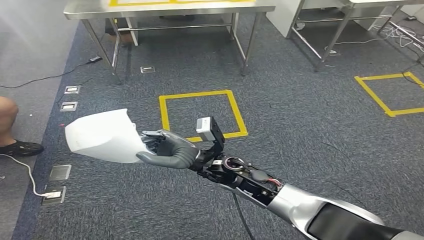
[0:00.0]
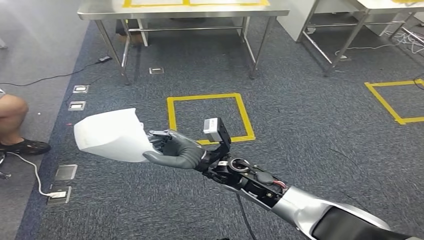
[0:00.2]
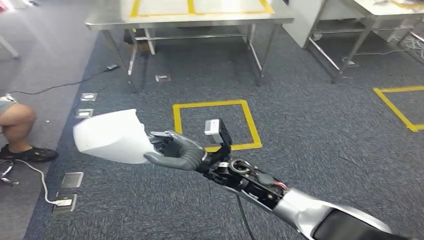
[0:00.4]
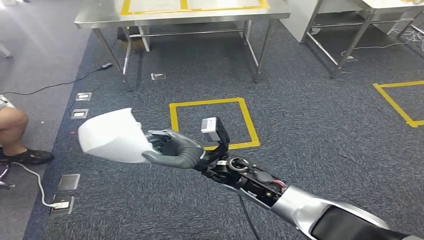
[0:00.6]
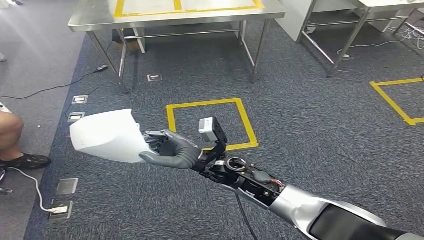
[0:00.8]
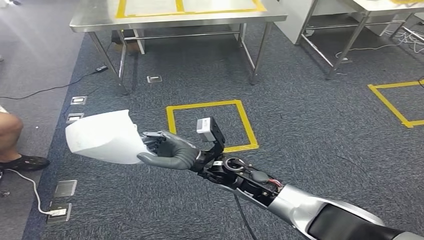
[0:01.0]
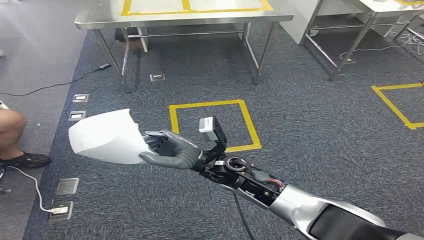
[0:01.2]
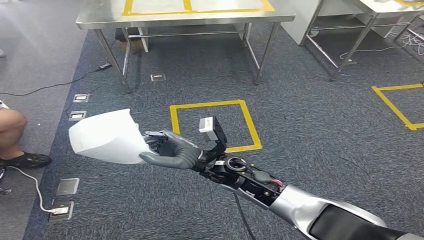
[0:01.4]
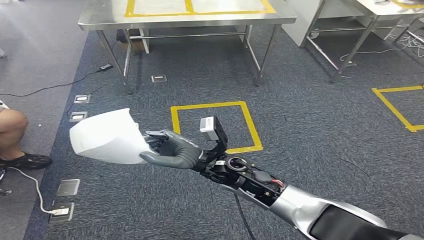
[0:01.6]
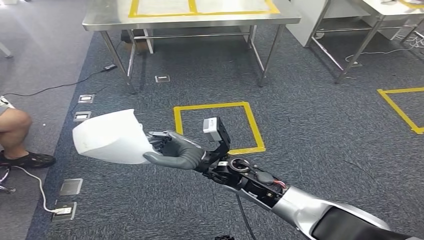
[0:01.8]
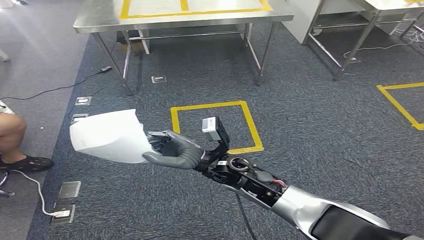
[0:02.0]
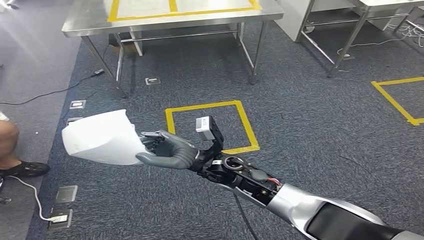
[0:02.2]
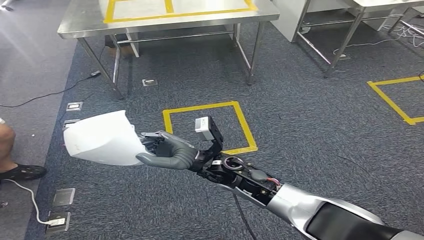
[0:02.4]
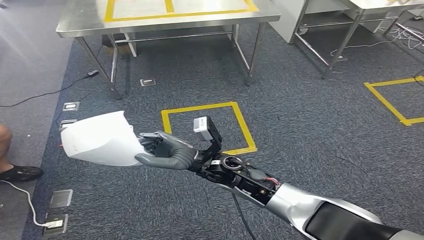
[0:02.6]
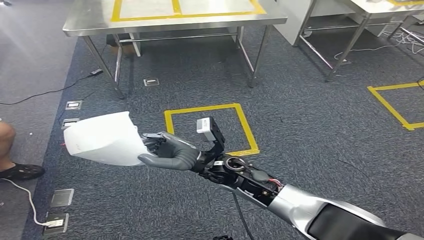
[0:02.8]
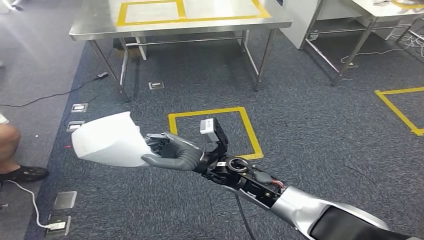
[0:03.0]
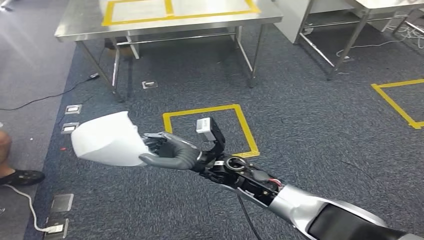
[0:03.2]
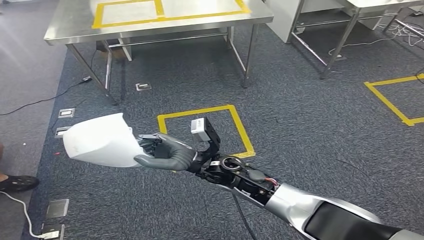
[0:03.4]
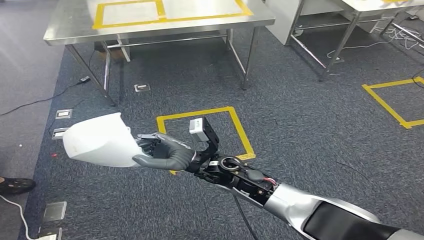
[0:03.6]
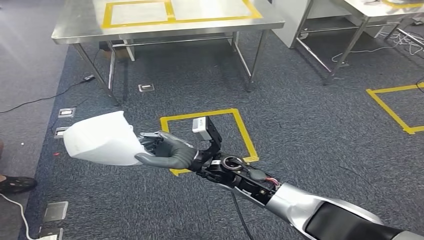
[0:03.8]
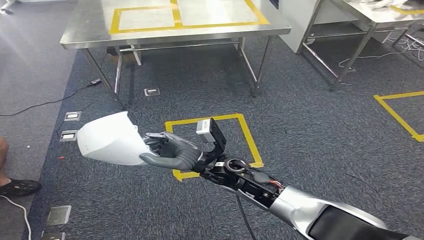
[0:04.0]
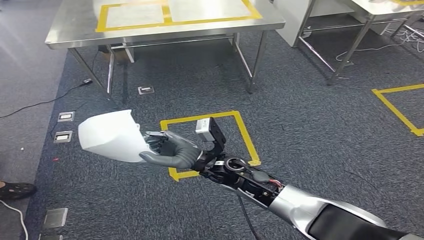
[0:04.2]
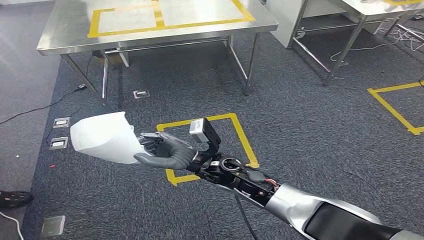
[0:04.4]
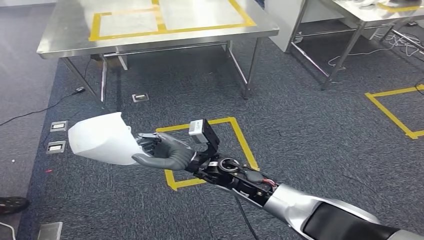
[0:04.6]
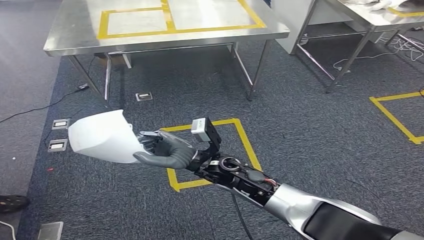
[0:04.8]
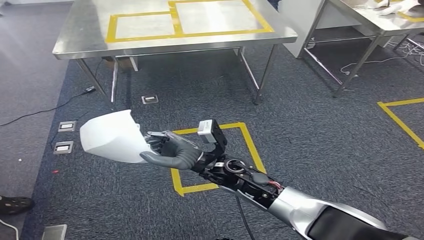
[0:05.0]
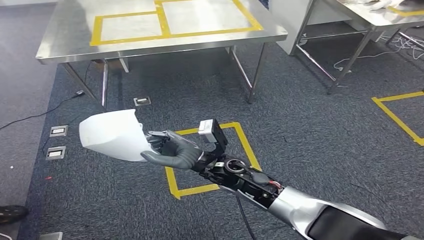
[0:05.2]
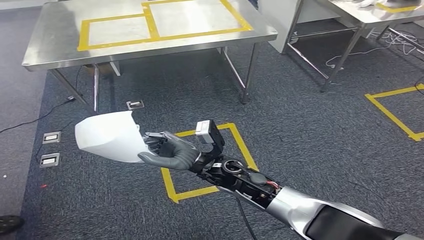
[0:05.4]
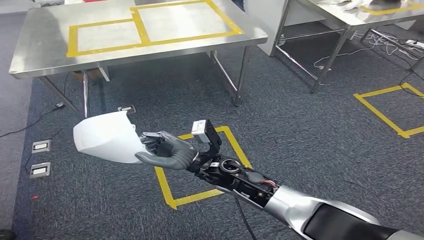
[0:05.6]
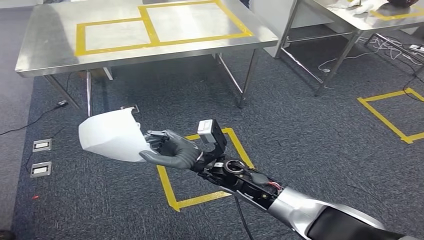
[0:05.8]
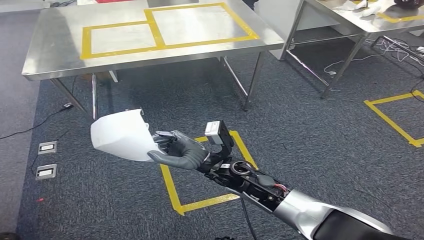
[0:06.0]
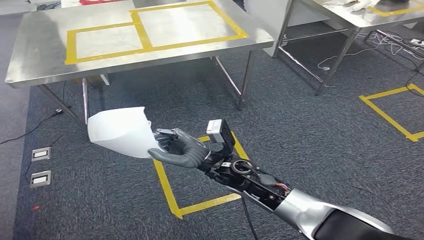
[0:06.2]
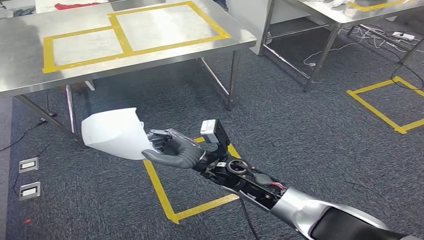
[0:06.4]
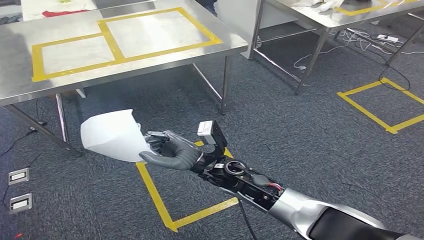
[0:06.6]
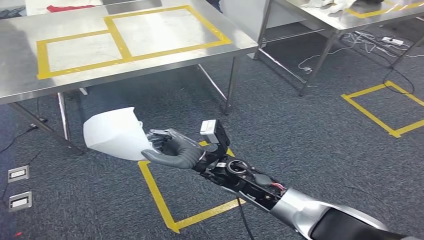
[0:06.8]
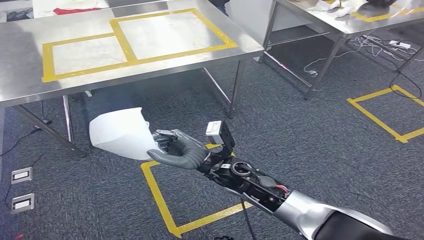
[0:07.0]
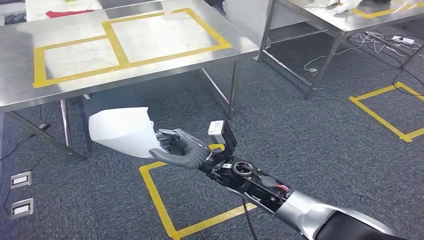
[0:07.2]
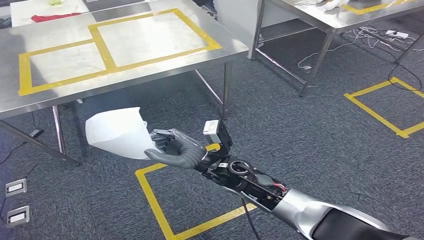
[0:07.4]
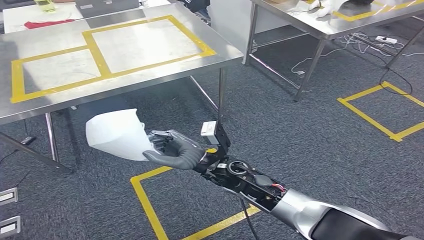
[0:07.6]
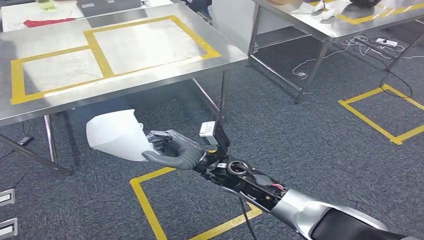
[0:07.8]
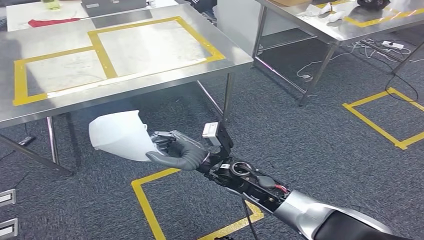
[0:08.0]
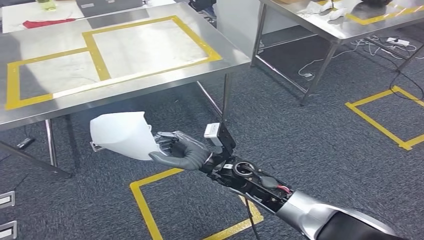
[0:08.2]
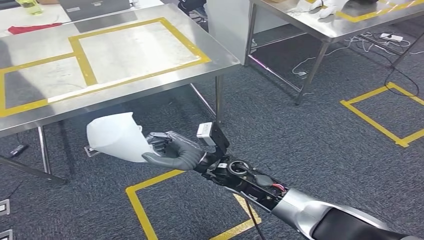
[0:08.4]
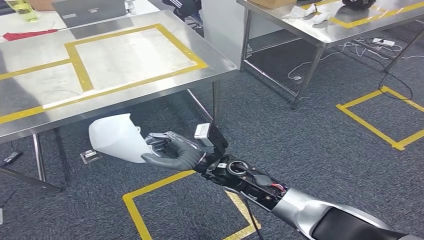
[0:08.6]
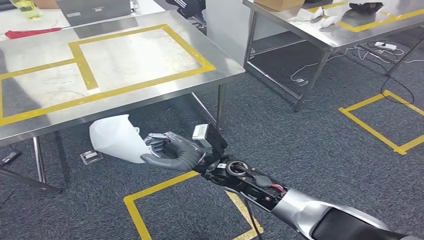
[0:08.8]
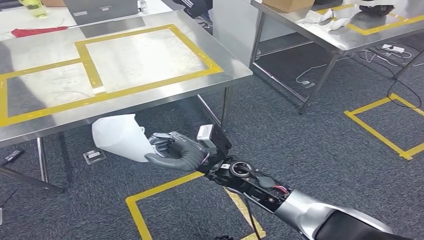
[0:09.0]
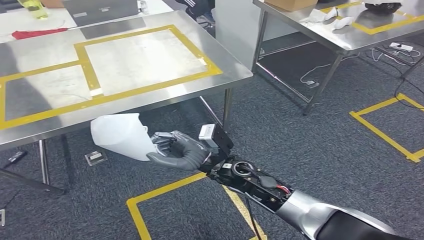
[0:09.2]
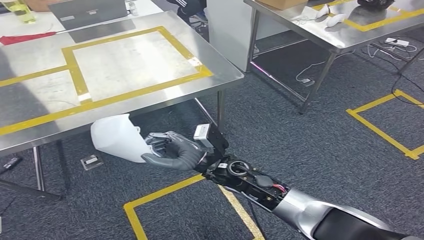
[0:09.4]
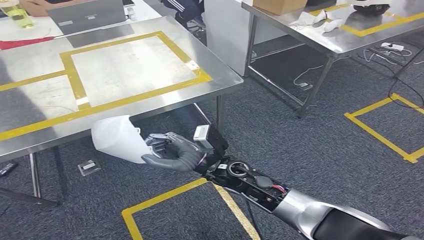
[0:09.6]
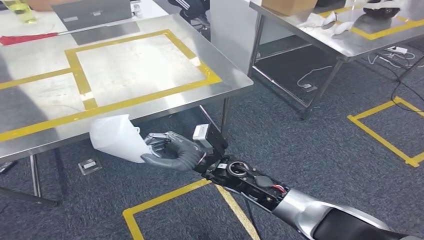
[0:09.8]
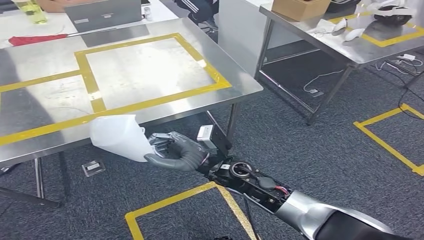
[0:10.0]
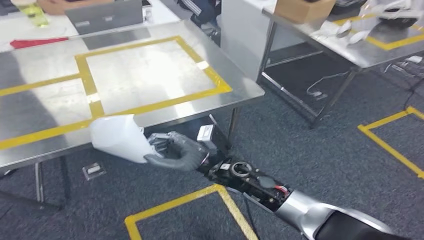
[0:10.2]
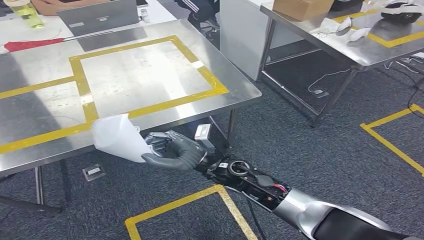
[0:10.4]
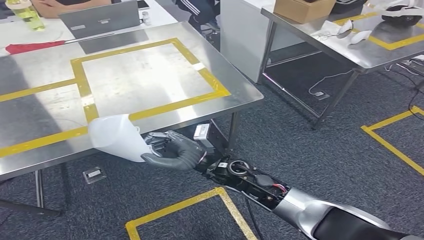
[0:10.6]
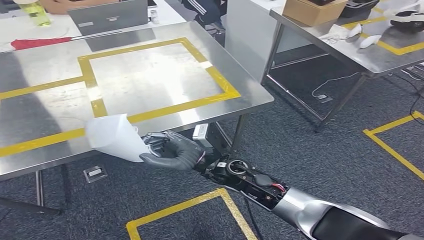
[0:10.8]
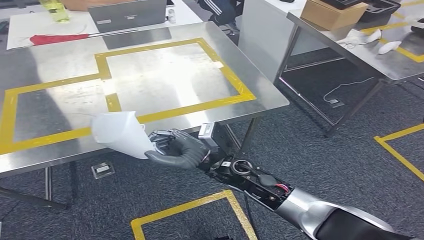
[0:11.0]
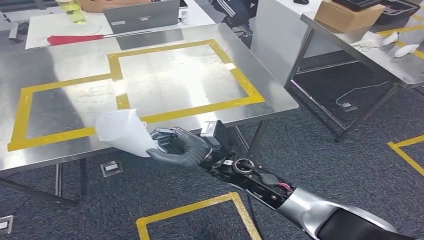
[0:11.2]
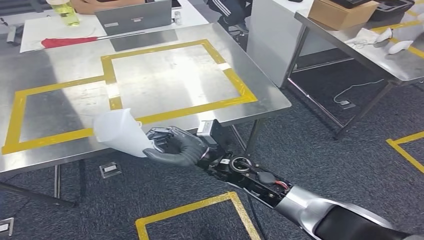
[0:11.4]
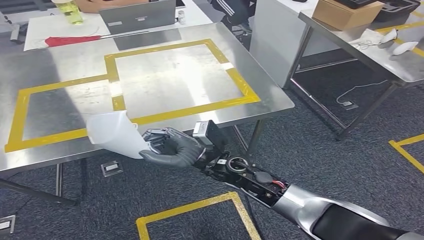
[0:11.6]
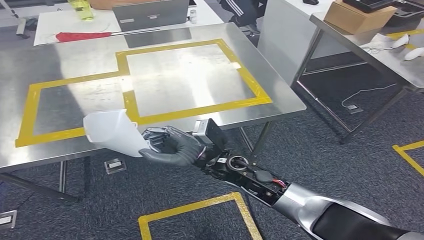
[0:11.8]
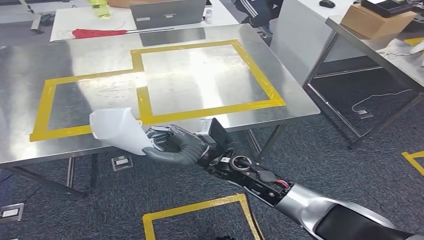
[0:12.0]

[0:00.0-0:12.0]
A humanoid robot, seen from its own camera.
0:01.6 to 0:03.0: Both hands stay put.

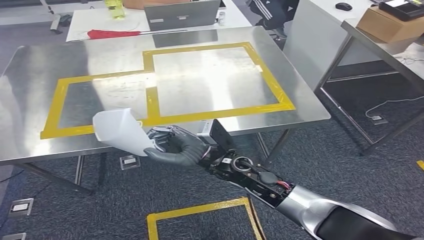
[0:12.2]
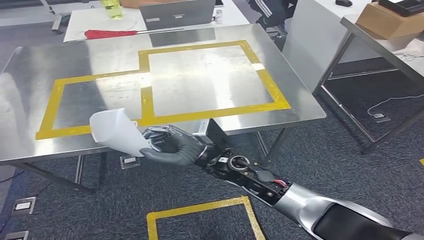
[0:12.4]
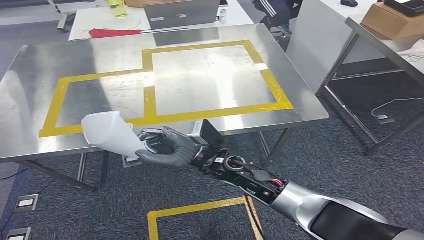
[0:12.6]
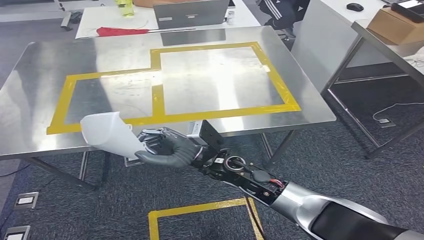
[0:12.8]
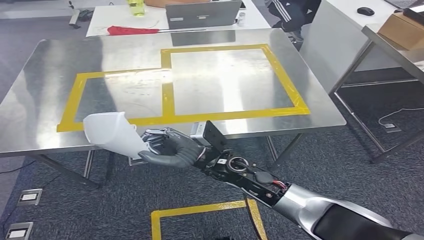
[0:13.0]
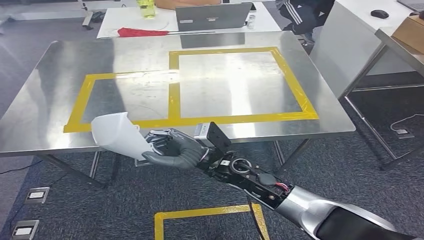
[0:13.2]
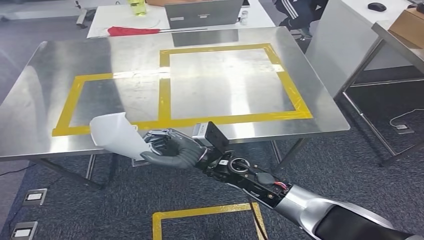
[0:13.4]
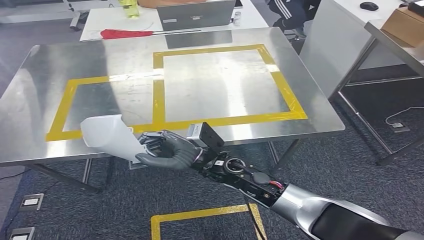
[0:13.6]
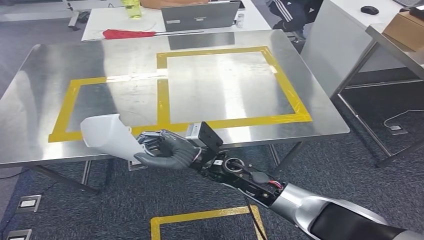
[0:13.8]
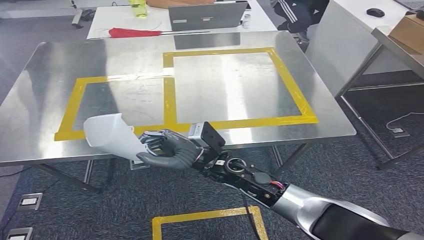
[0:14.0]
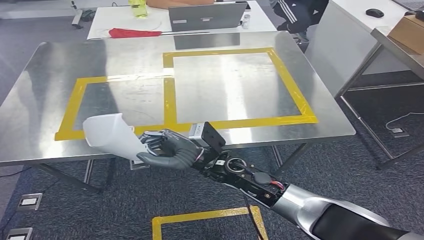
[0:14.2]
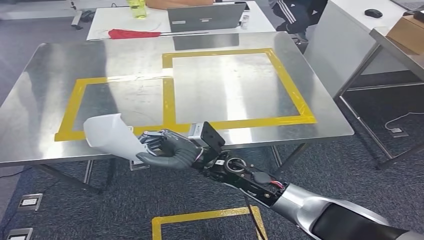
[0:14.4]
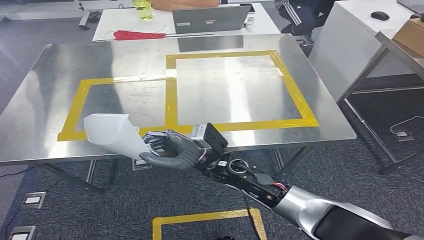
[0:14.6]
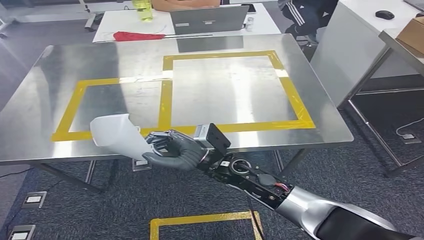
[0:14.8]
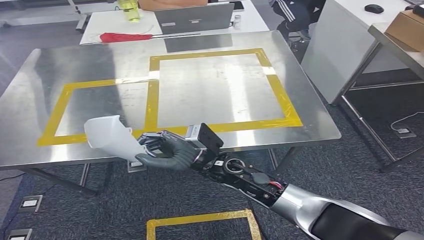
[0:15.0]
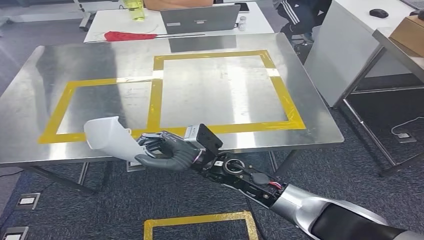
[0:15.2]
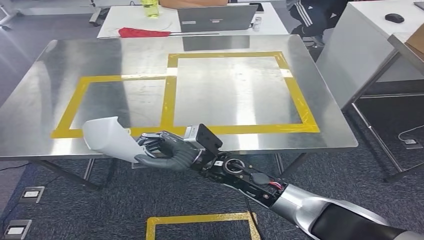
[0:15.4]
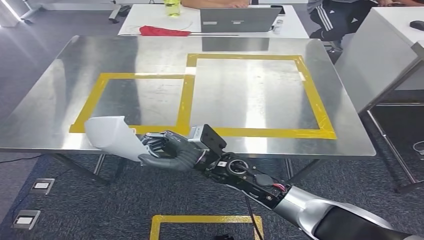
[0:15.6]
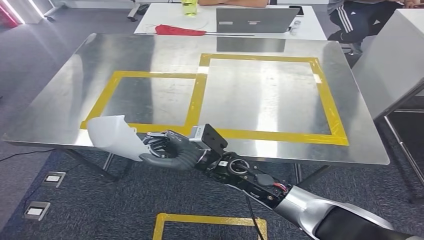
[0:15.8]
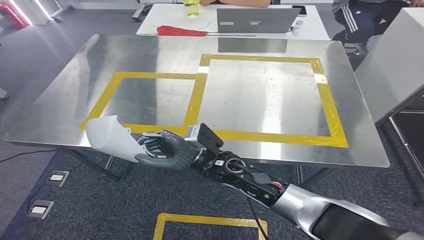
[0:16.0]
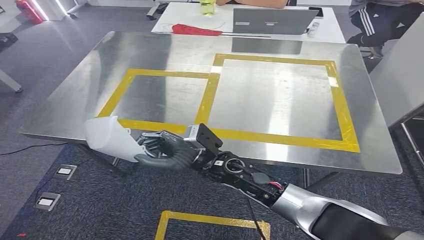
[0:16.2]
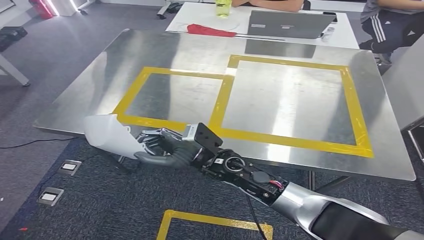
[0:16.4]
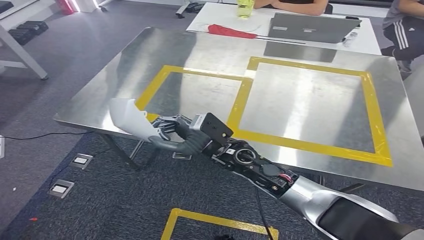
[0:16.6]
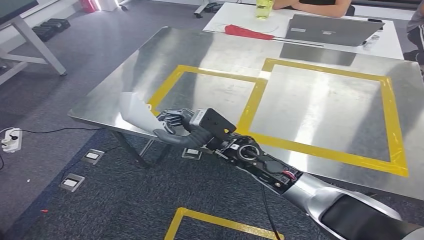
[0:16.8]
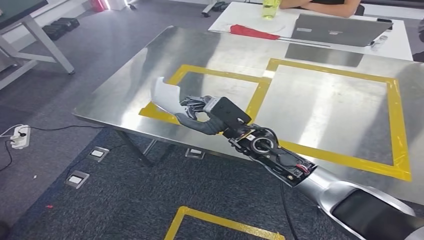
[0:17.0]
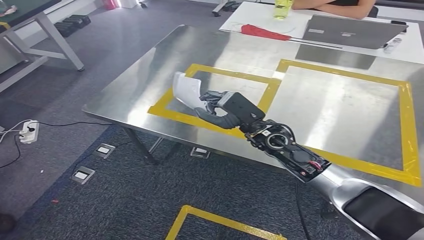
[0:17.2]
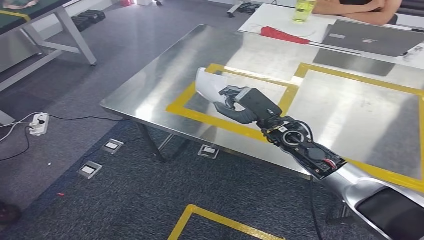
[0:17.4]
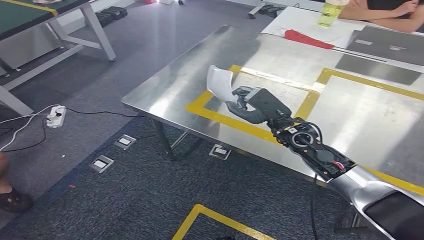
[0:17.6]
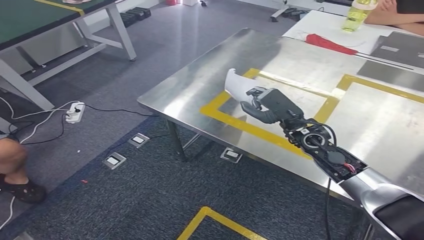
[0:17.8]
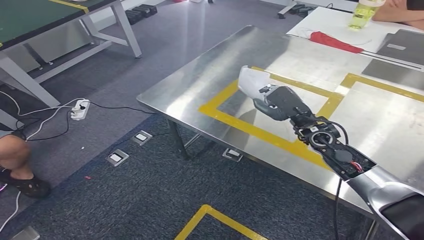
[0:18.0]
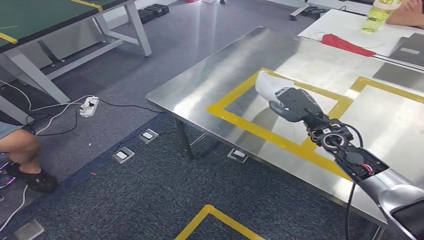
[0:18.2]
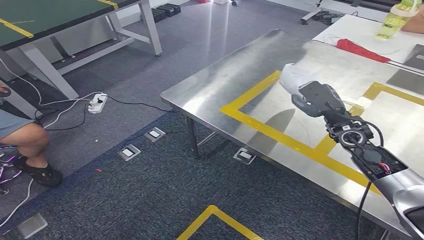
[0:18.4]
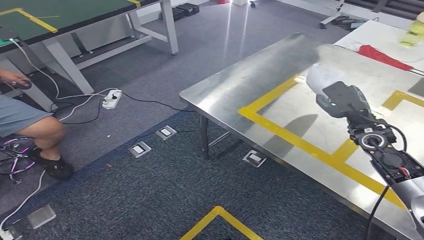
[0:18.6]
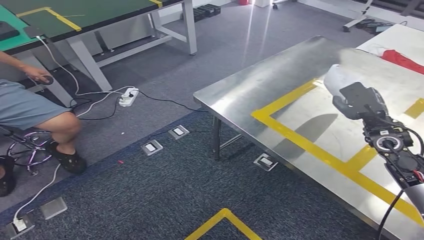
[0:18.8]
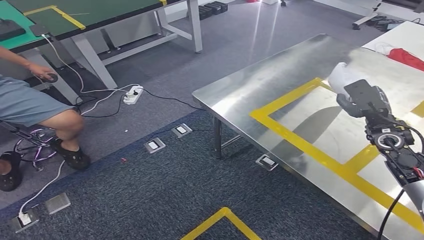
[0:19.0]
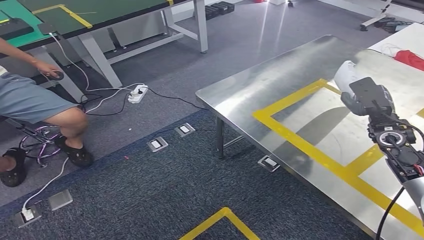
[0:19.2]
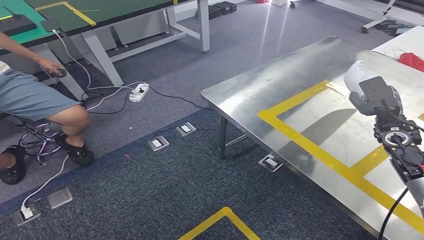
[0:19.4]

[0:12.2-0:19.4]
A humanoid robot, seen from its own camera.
0:13.6 to 0:15.0: Neither hand changes place.
